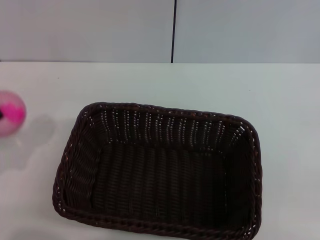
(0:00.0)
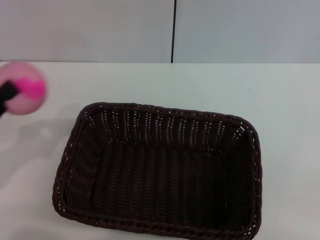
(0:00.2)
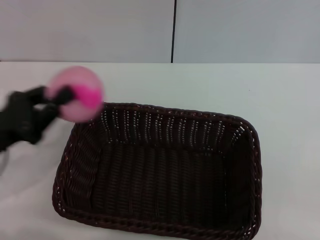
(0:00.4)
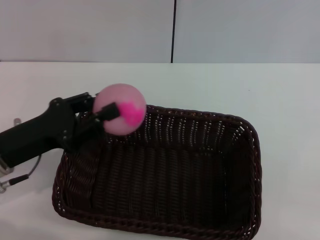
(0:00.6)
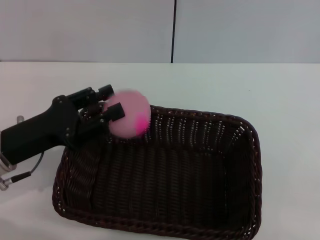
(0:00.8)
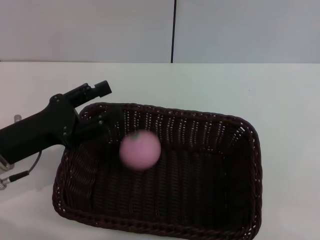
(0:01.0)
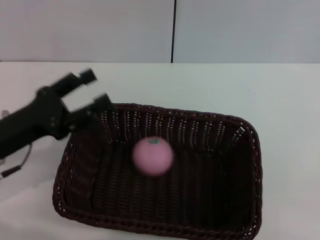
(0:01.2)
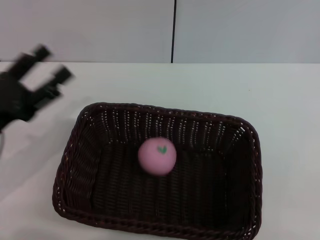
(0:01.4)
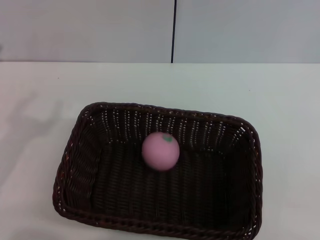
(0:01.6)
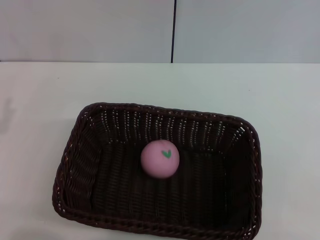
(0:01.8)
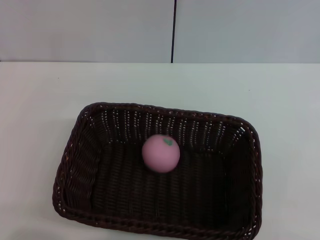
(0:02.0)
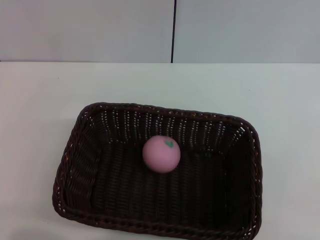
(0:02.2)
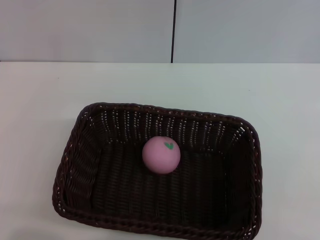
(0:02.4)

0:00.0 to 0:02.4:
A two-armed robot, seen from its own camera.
Step, 0:00.0 to 0:01.2: Place the peach into the basket with the left gripper.
0:00.0 to 0:01.2: The left gripper shifts some 10 cm to the right and forward, and opens up.
0:01.2 to 0:02.4: The left gripper goes some 10 cm to the left and backward.

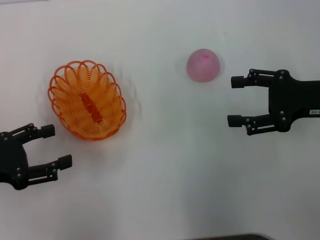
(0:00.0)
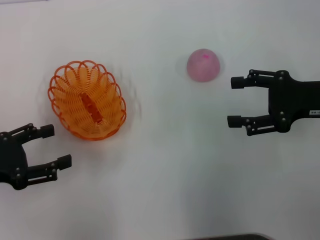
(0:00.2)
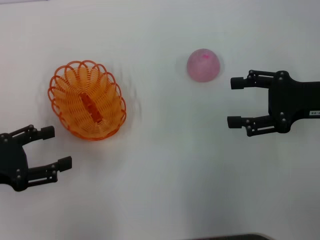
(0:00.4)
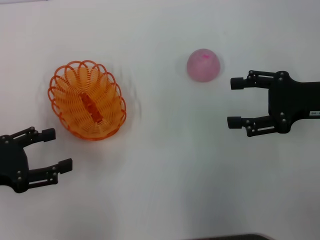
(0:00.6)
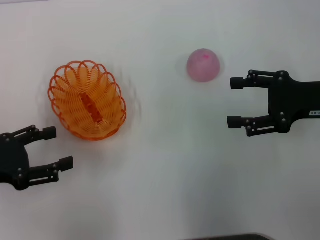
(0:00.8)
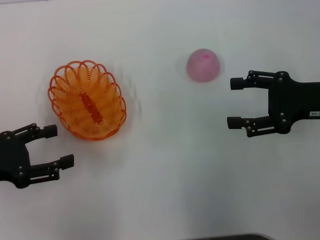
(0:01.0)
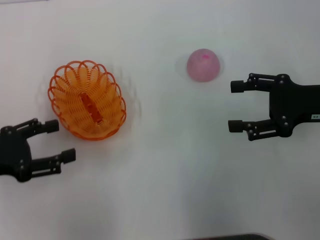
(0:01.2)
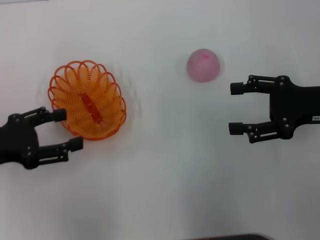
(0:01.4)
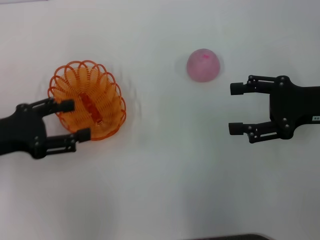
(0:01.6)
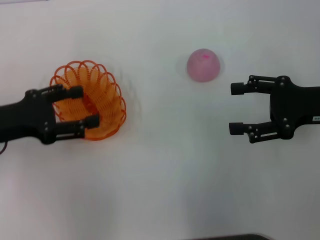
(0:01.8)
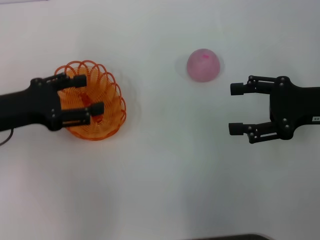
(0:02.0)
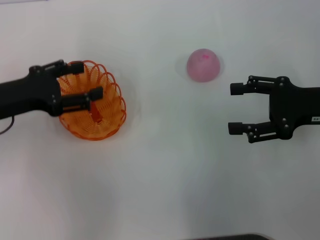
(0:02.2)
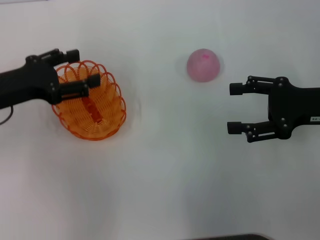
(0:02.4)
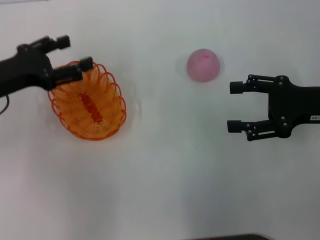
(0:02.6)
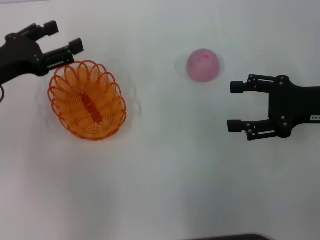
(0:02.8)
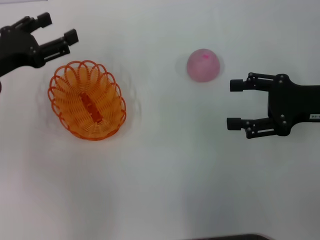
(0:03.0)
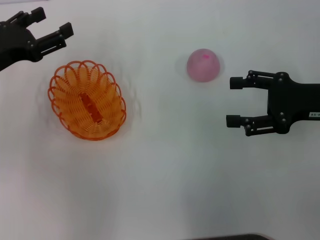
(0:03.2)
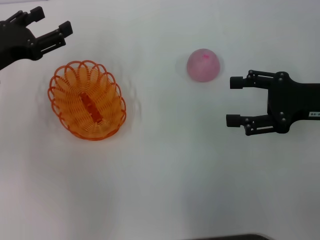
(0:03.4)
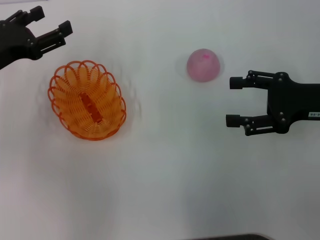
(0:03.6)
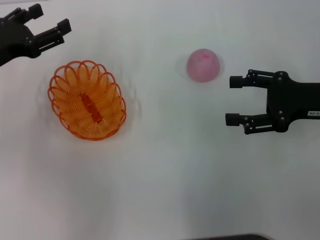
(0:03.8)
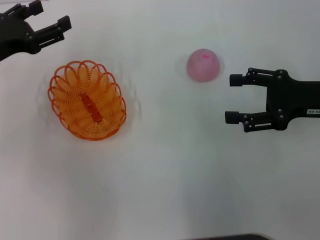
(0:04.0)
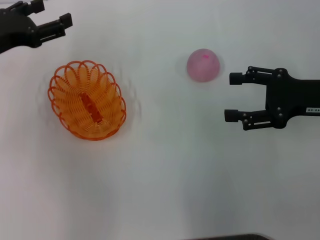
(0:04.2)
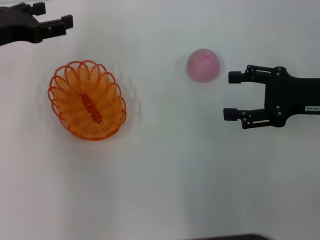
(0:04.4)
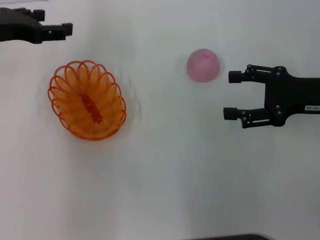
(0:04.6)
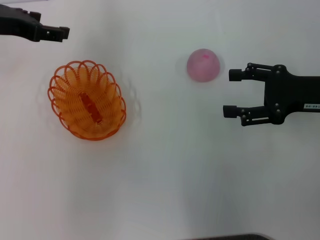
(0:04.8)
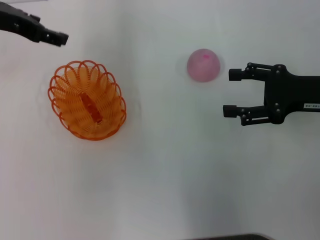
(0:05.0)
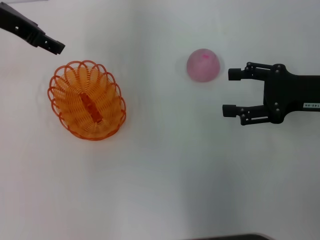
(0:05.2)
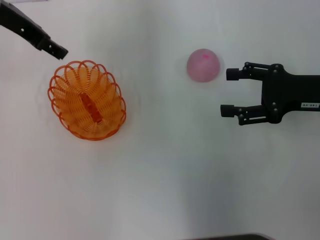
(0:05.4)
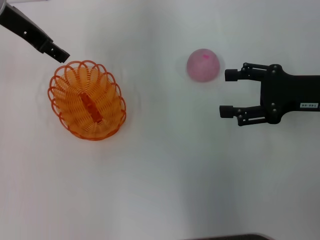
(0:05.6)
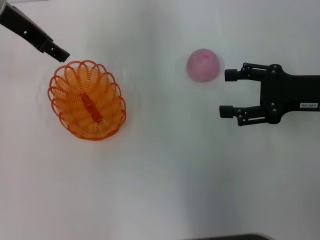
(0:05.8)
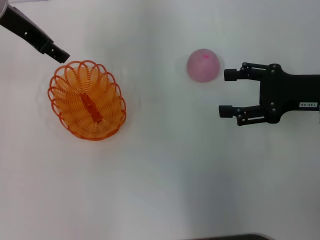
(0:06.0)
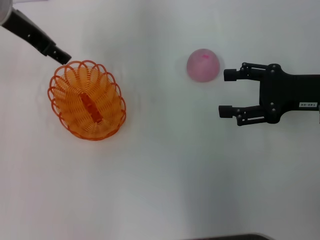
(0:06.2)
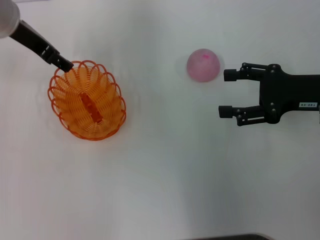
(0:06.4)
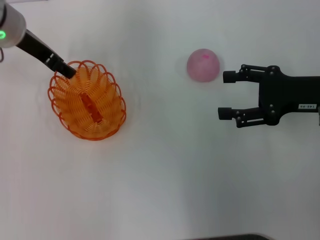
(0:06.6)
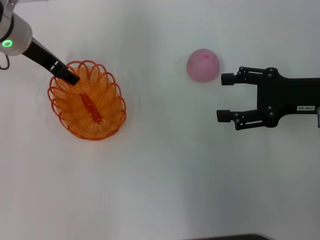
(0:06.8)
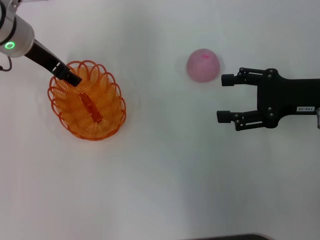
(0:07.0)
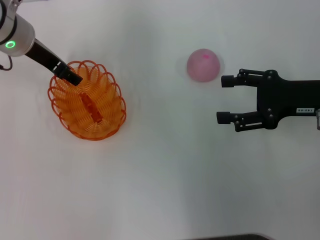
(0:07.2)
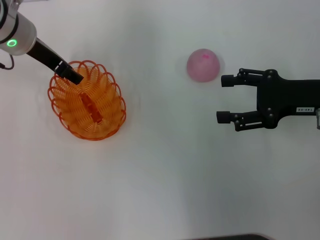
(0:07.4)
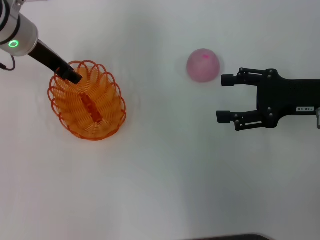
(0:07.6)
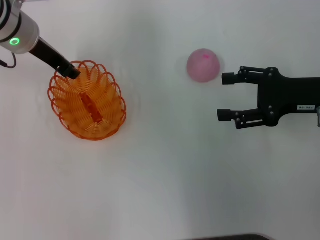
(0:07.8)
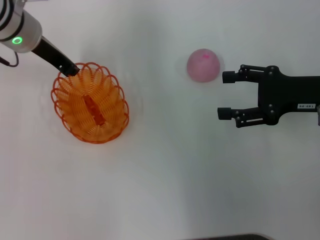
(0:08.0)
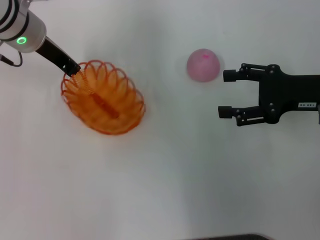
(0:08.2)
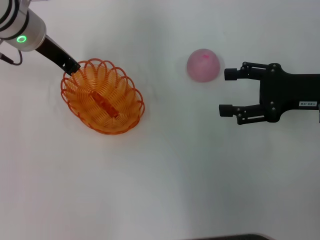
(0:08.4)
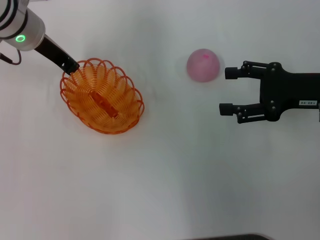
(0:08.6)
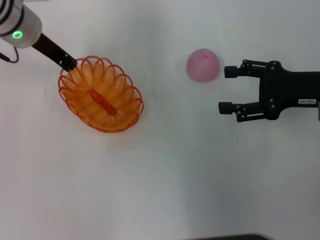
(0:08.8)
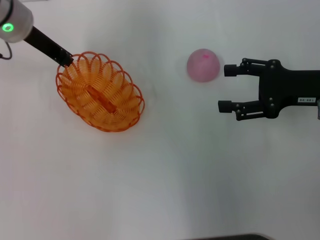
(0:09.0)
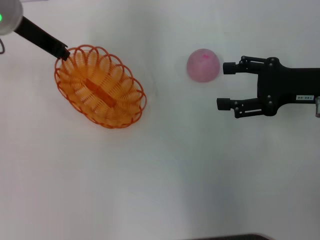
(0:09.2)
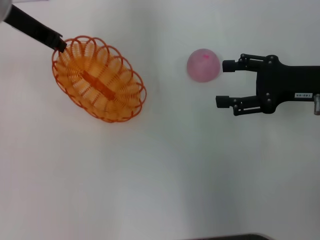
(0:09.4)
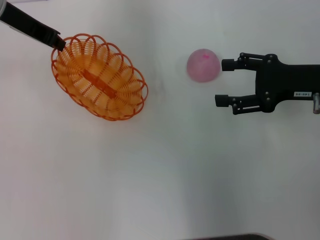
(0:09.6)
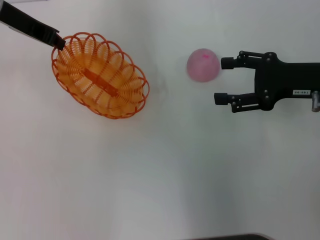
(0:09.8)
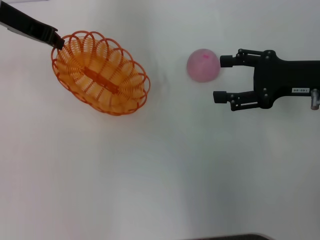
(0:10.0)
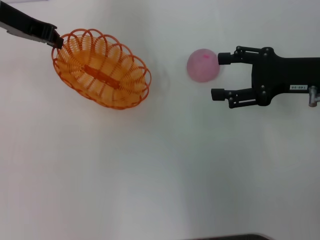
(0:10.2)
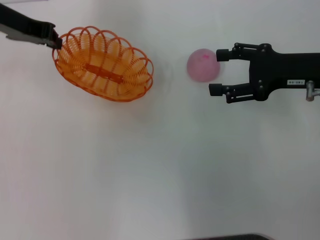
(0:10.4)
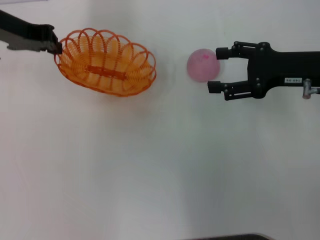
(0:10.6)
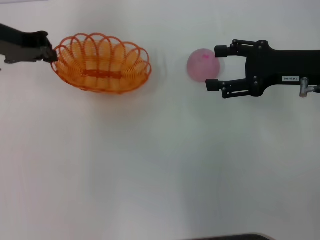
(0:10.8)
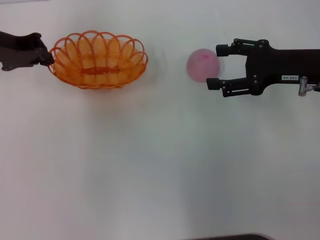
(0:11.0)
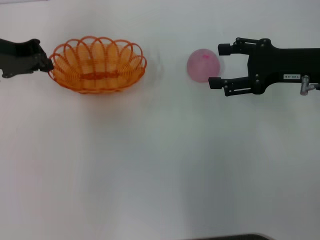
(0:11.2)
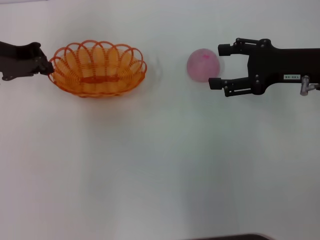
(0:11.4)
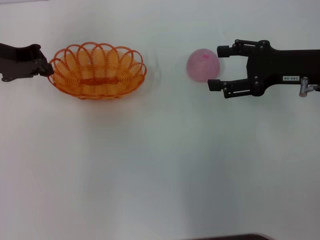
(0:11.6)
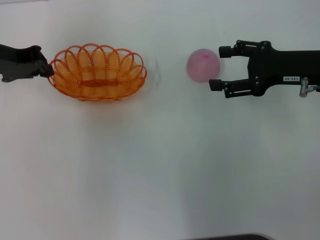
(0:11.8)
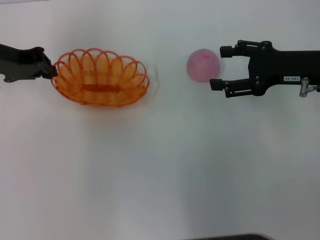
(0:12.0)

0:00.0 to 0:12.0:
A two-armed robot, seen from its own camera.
Step, 0:00.0 to 0:10.0: Pick up the basket with the left gripper.
0:00.0 to 0:01.6: The grippers make only small movements.
0:01.6 to 0:03.0: The left gripper heads forward, covering some 5 cm.
0:03.0 to 0:04.4: The left gripper shifts by approximately 5 cm.
0:04.4 to 0:06.0: The left gripper goes about 10 cm to the right, upward and forward.
0:06.0 to 0:07.6: The left gripper is displaced downward by some 5 cm.
0:07.6 to 0:09.0: The left gripper closes.
0:10.4 to 0:12.0: The left gripper shifts by some 5 cm.

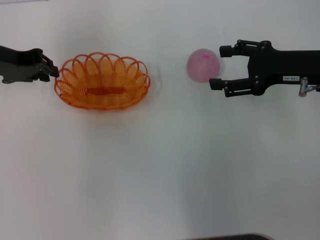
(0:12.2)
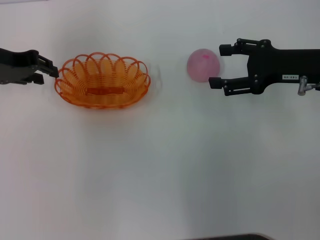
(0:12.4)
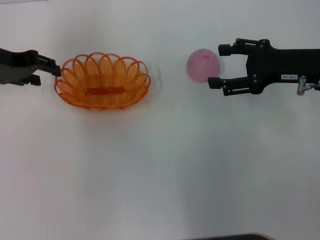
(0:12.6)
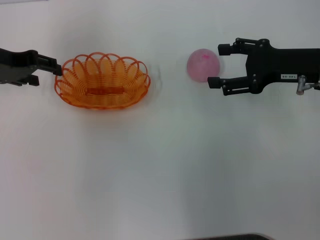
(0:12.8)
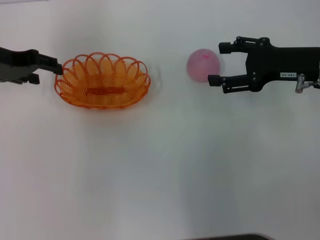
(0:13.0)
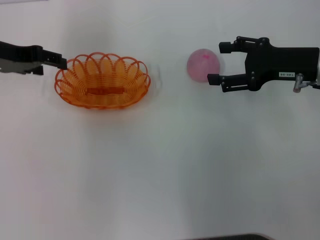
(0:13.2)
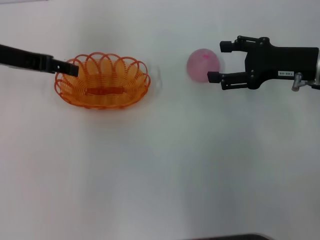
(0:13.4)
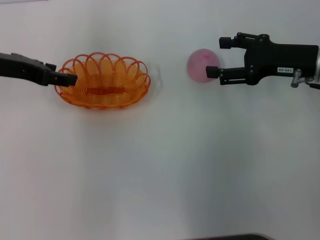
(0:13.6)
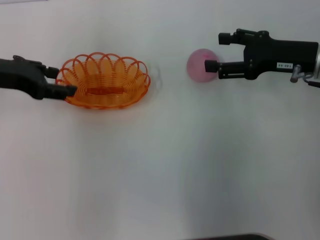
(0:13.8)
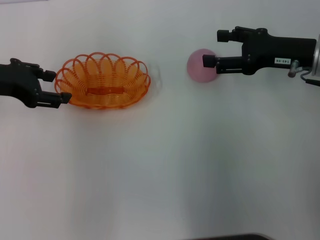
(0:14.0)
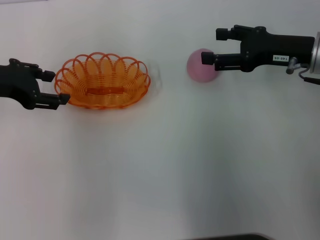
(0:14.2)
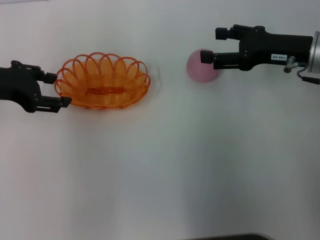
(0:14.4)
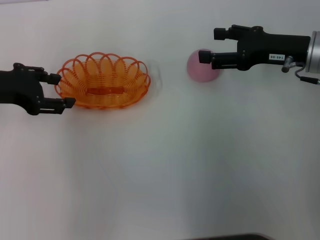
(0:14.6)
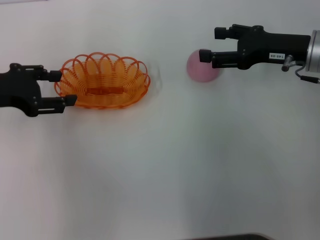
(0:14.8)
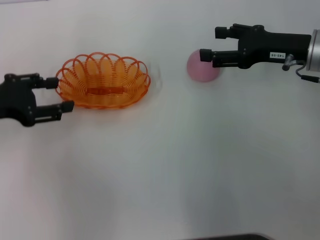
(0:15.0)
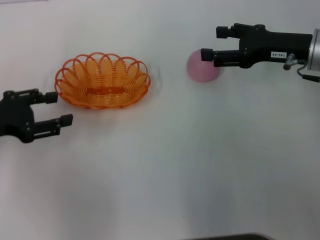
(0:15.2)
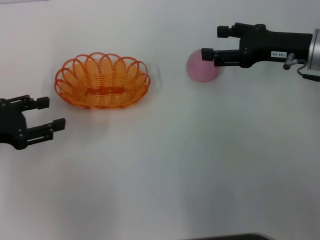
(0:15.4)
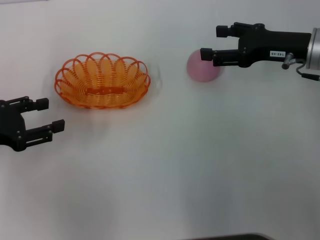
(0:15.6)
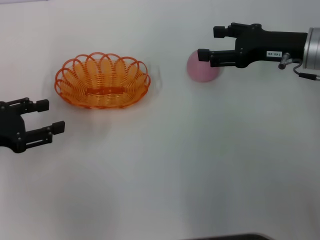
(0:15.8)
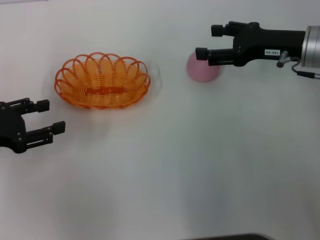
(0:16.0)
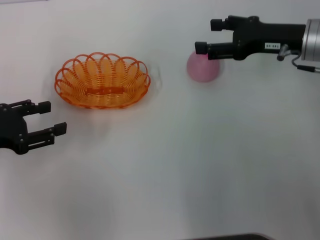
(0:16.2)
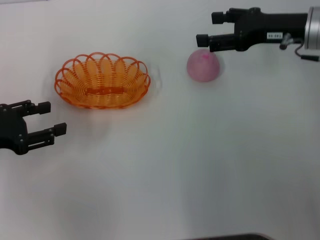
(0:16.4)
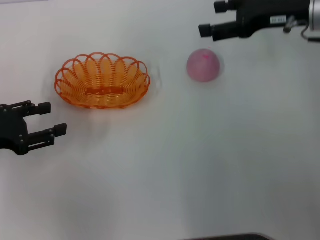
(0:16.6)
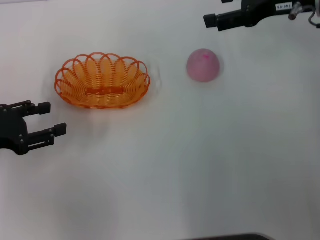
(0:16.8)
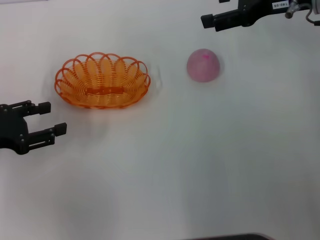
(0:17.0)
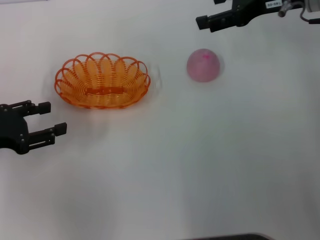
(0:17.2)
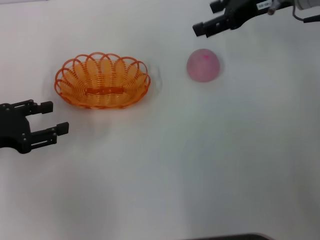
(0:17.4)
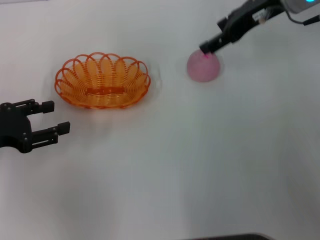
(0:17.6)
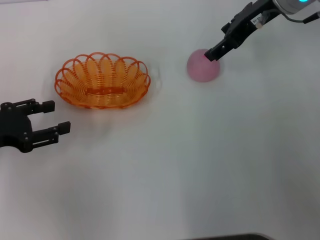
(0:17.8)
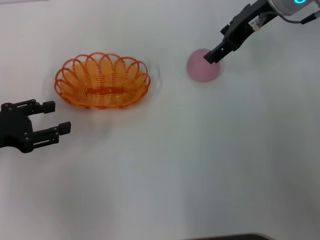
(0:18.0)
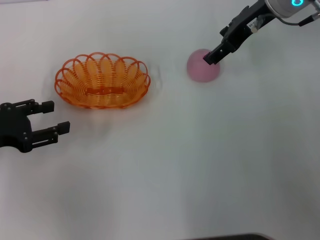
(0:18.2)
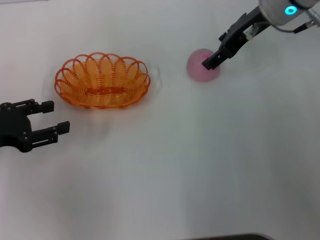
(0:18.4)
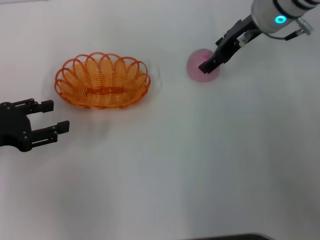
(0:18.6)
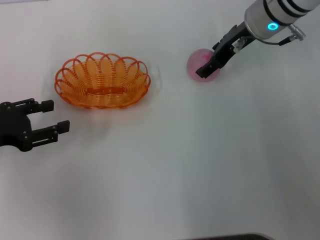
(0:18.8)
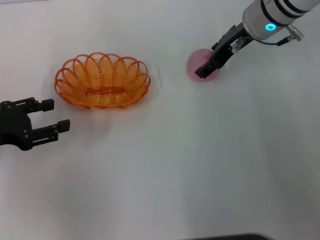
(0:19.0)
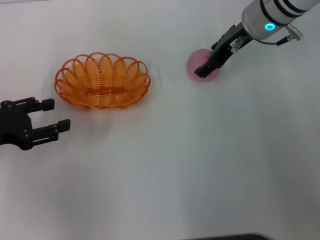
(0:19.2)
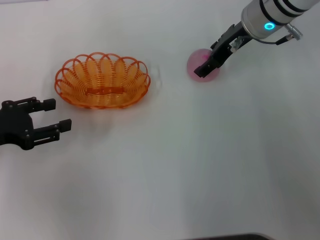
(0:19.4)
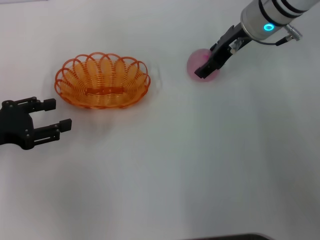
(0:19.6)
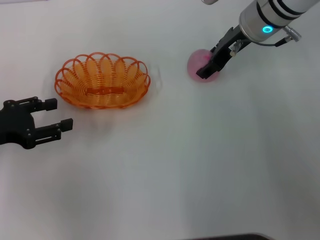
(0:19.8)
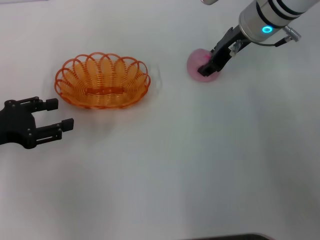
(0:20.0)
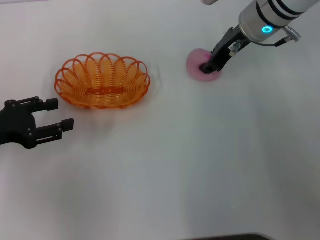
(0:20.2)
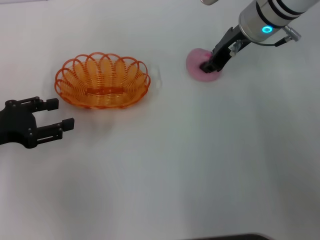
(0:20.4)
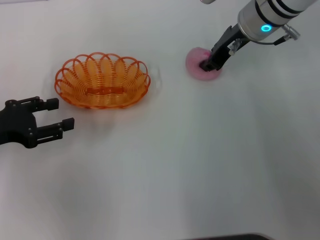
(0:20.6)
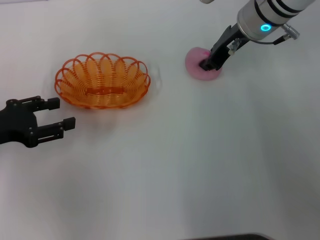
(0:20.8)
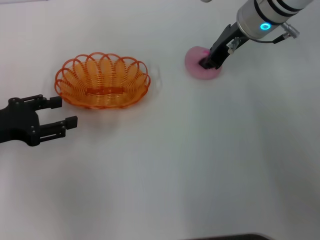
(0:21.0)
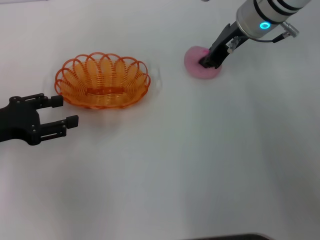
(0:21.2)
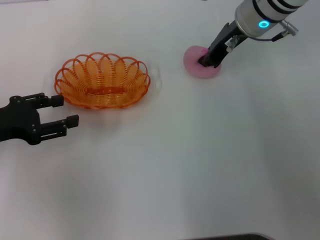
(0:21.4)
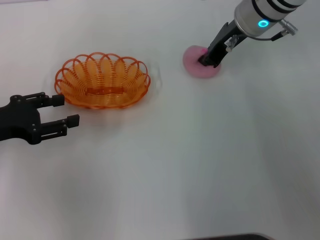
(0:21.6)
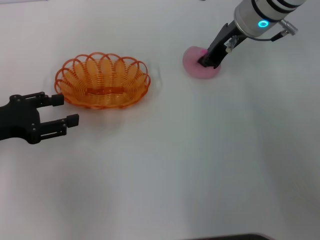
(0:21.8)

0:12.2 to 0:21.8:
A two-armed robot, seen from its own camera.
Step, 0:12.2 to 0:15.6: Place the basket in the center of view with the left gripper.
0:12.2 to 0:13.8: The left gripper opens its fingers.
0:13.8 to 0:15.4: The left gripper moves backward, downward and to the left, roughly 10 cm.
0:15.4 to 0:17.0: The right gripper moves upward, about 10 cm.
0:17.0 to 0:18.6: The right gripper heads to the left, covering roughly 5 cm.
0:18.6 to 0:20.2: The right gripper closes its fingers.
0:20.2 to 0:21.8: The right gripper closes up.
